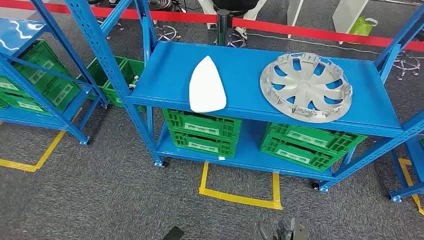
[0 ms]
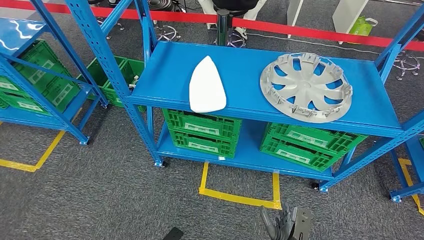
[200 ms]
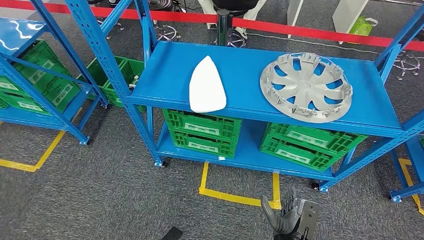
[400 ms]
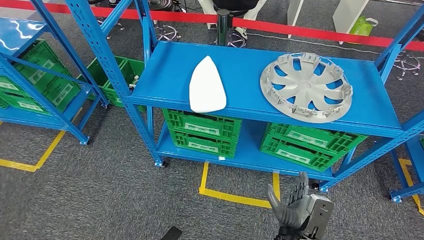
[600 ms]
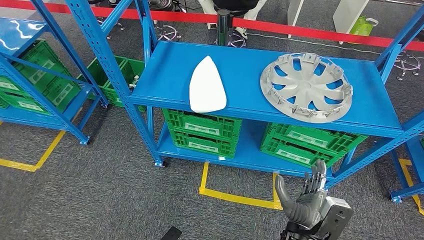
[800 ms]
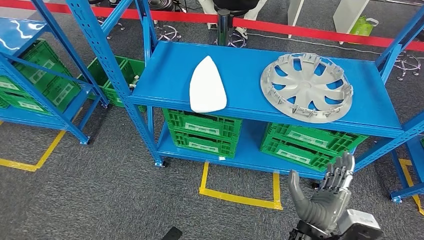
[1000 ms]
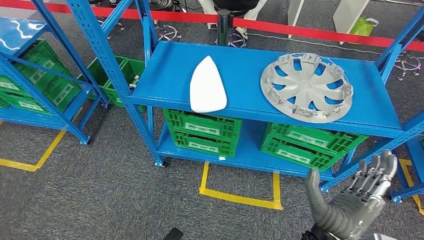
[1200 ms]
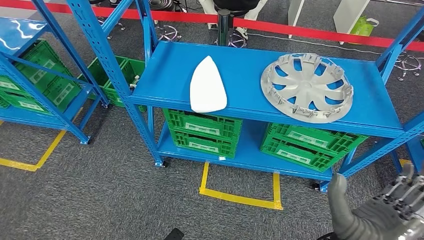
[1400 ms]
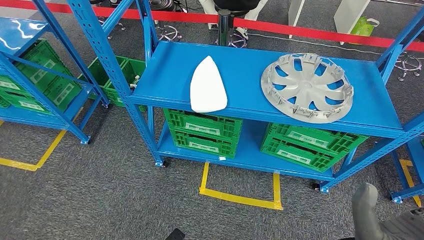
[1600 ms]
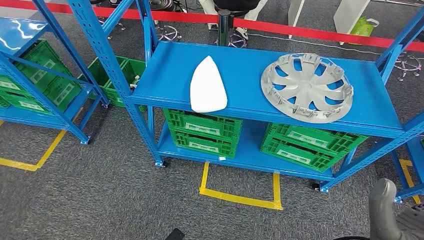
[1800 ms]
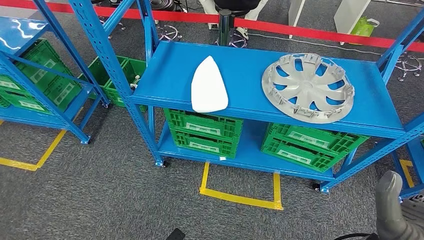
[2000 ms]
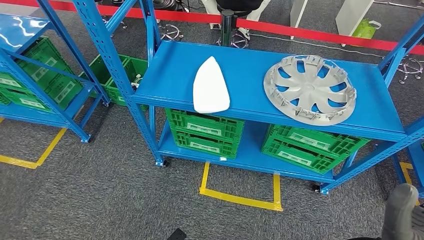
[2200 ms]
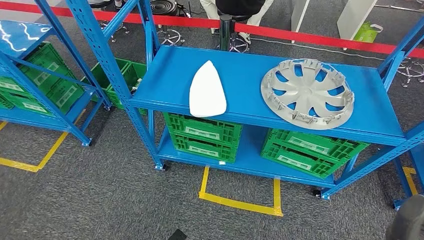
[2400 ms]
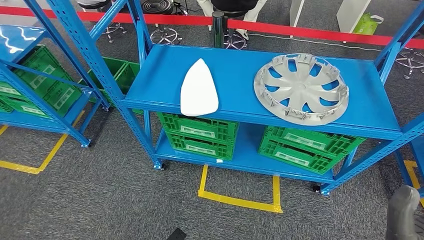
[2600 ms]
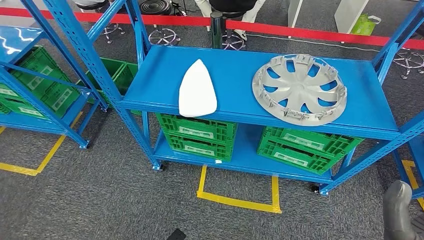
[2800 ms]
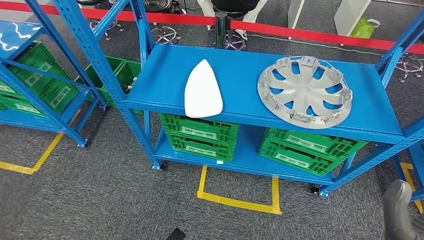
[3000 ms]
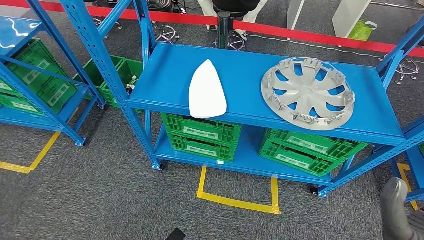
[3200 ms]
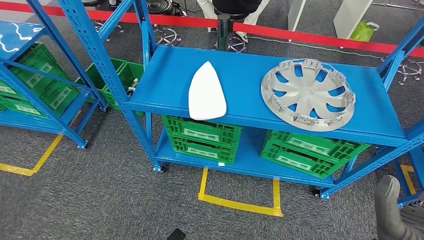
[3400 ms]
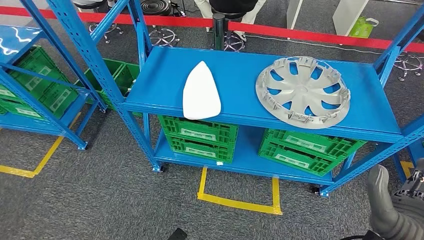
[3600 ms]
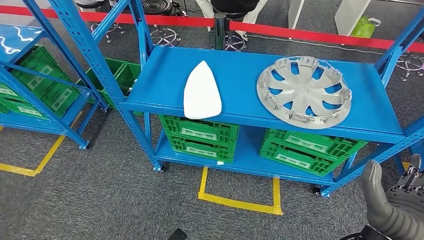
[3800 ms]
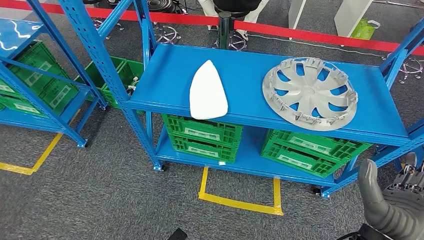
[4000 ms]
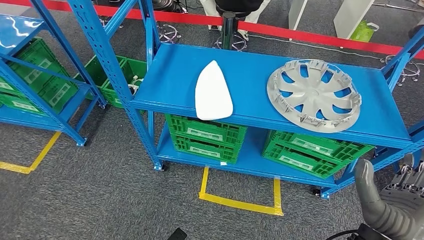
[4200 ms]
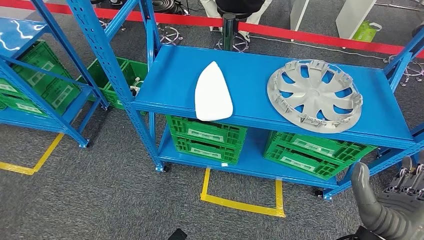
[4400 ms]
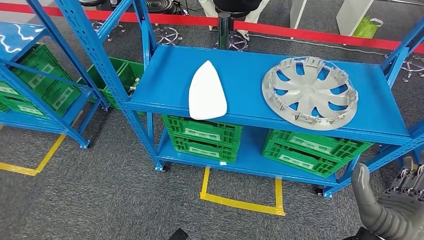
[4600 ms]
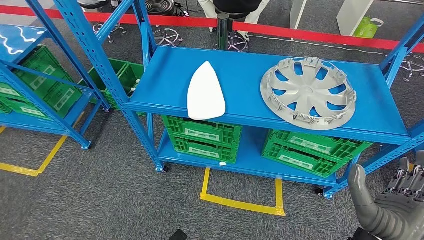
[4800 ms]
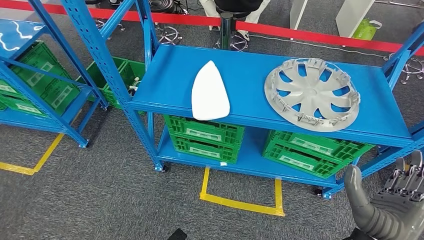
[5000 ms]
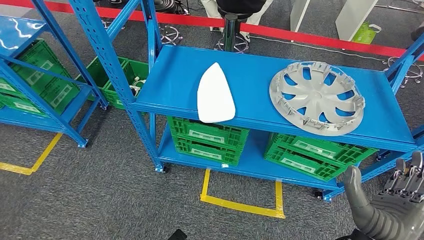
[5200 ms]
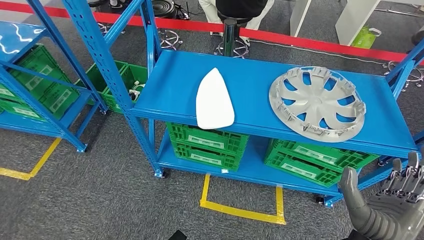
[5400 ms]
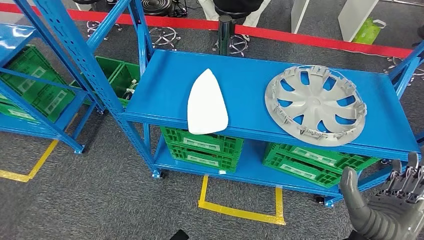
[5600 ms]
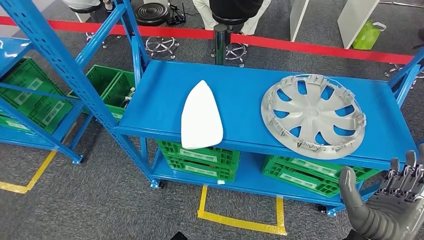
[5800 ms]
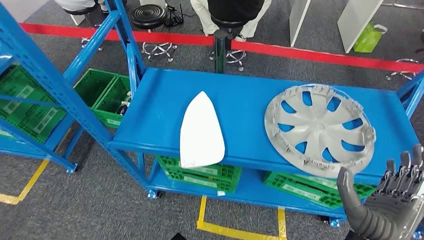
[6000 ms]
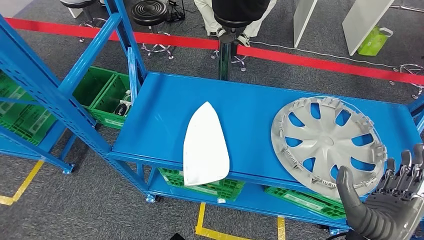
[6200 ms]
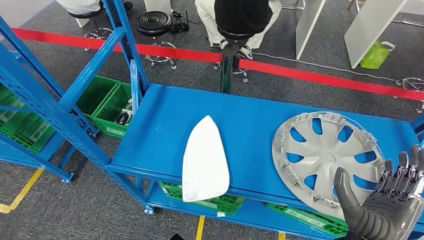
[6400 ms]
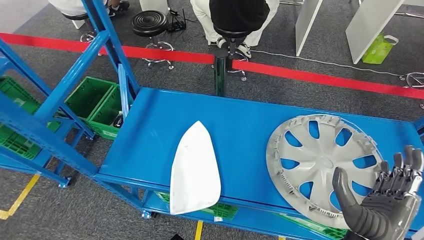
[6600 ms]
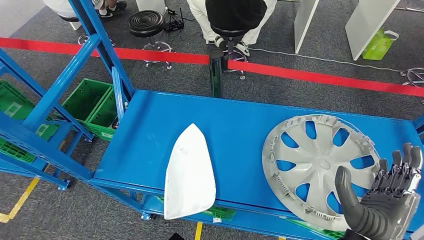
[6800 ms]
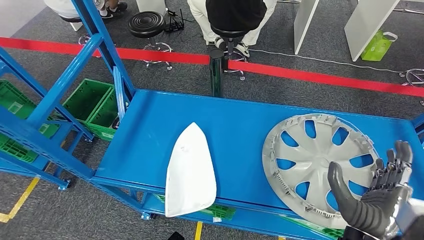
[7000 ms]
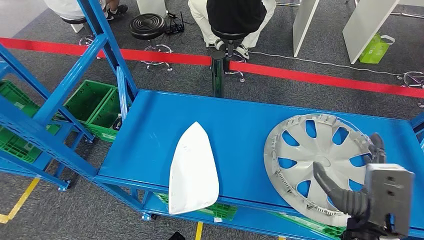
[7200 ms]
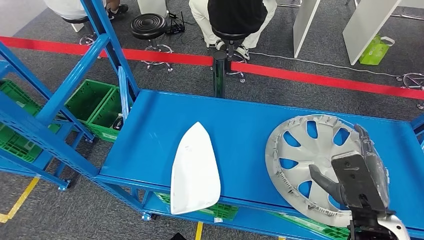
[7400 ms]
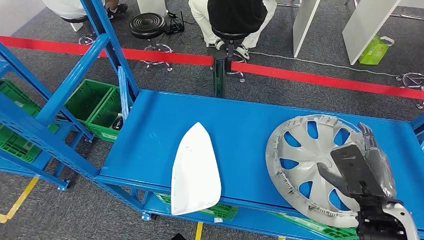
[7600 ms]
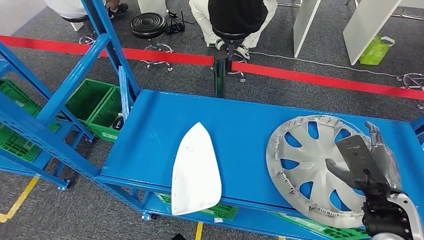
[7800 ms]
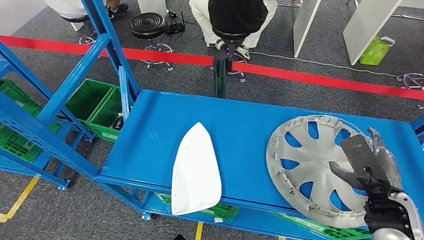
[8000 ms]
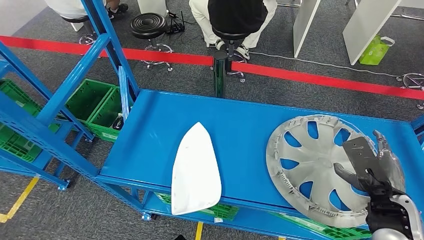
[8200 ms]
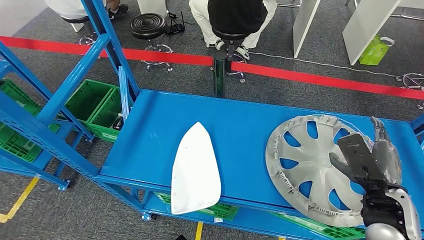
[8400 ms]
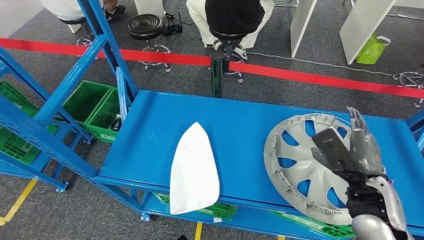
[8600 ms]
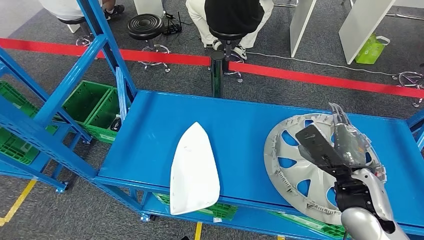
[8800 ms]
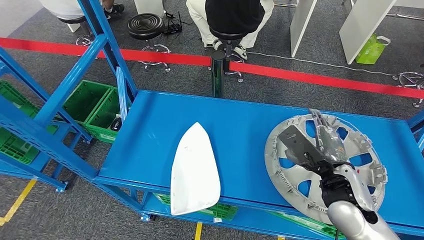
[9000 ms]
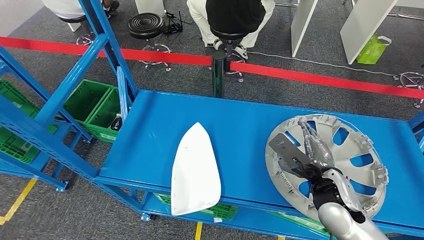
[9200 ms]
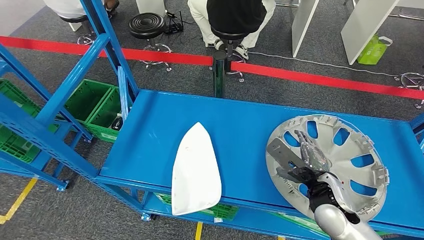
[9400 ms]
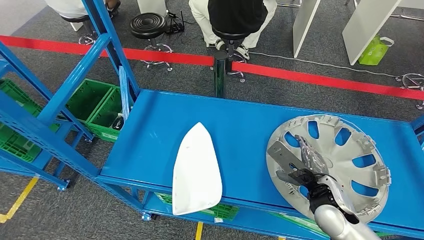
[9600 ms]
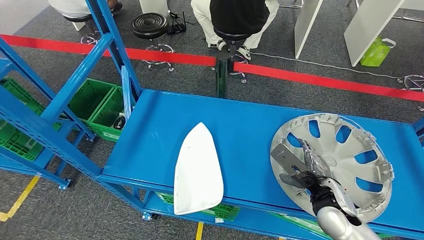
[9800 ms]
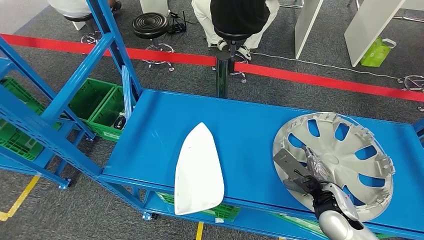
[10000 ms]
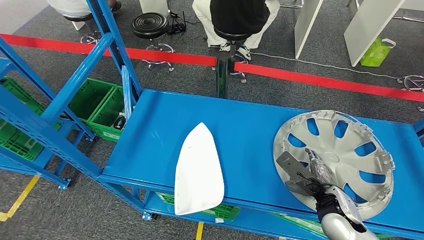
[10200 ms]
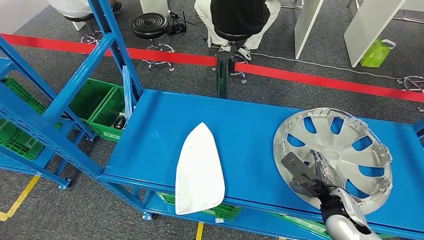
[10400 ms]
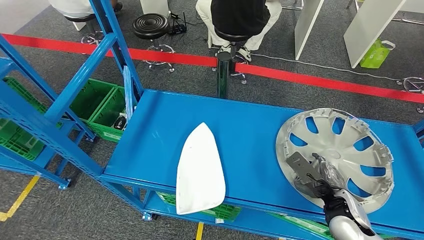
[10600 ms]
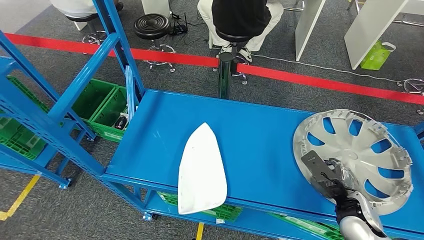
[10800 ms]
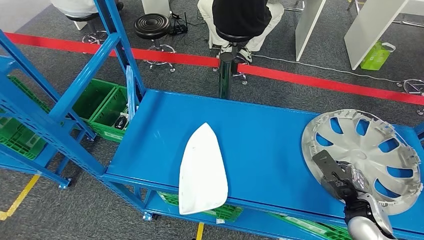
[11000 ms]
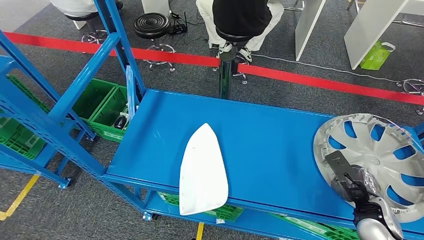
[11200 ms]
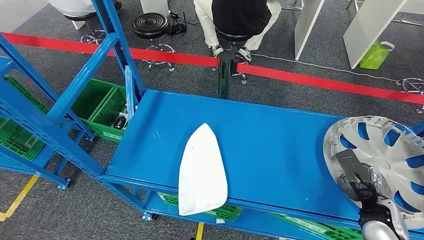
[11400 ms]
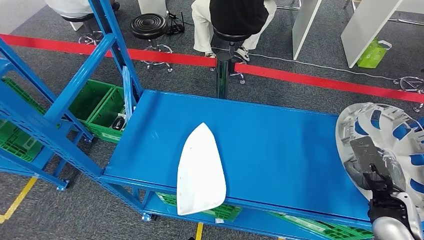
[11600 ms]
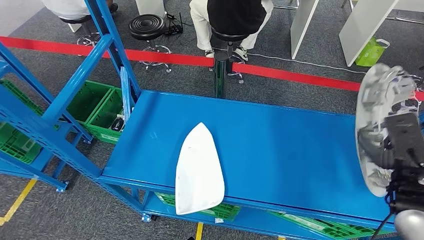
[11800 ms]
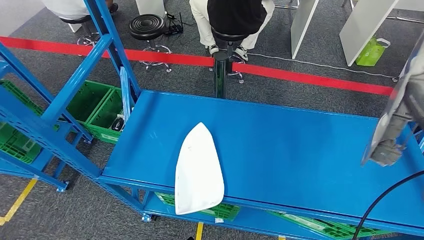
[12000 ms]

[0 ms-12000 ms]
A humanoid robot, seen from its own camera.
7600 ms to 9000 ms: The right hand shifts roughly 5 cm forward.

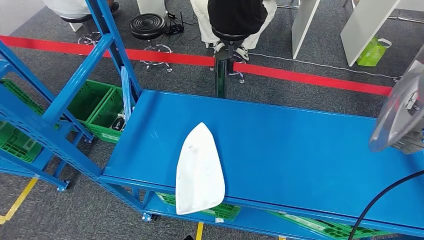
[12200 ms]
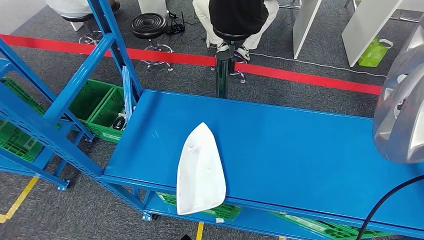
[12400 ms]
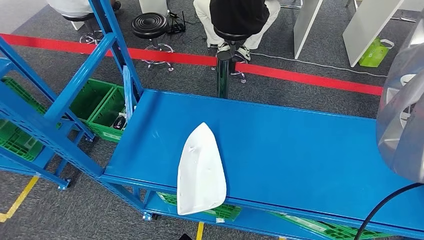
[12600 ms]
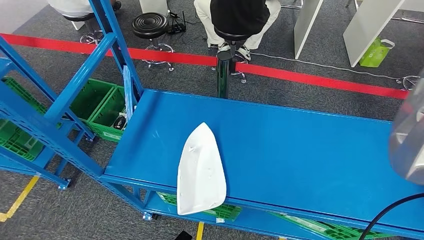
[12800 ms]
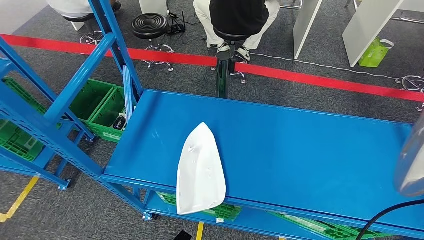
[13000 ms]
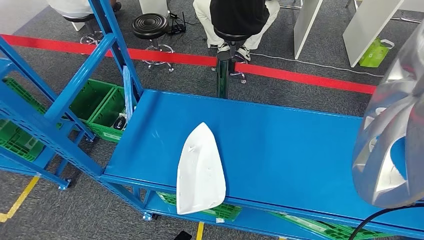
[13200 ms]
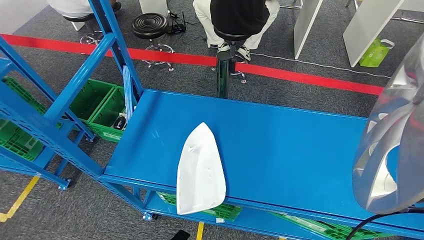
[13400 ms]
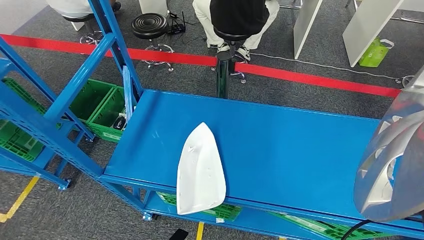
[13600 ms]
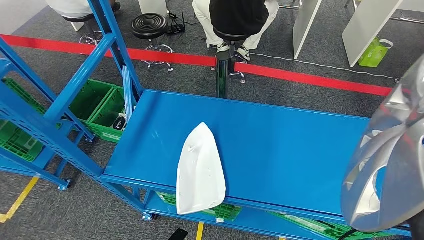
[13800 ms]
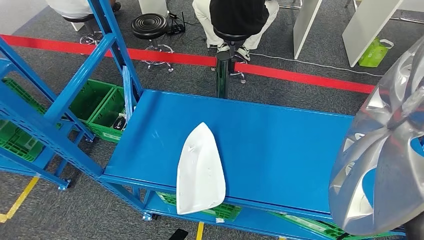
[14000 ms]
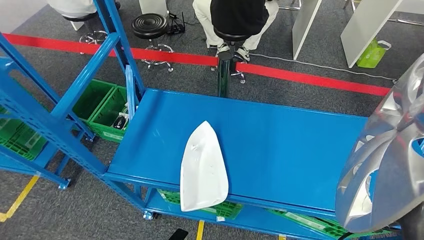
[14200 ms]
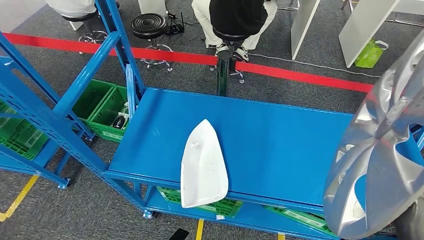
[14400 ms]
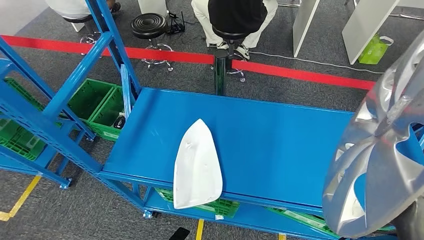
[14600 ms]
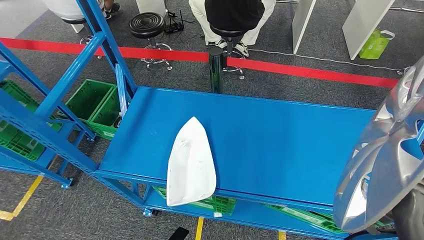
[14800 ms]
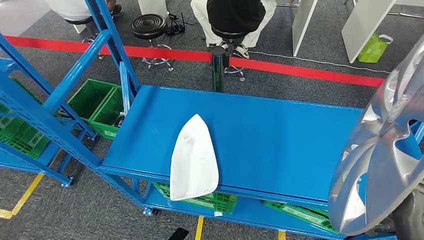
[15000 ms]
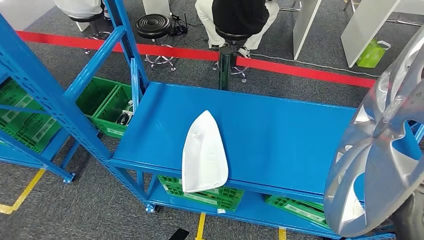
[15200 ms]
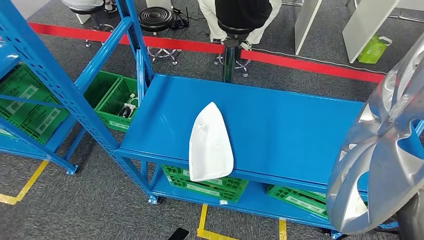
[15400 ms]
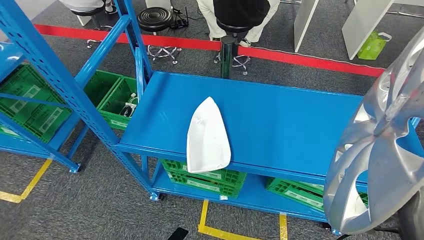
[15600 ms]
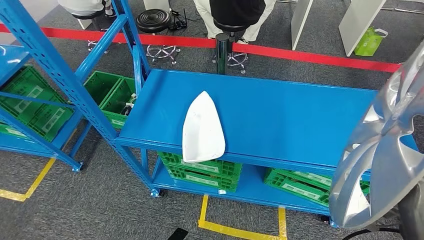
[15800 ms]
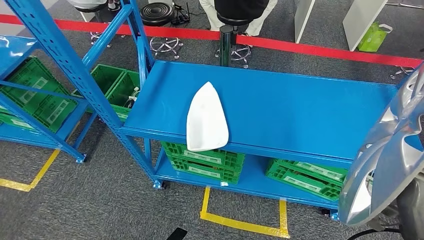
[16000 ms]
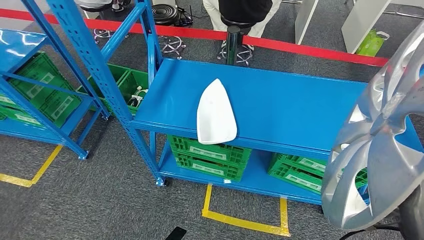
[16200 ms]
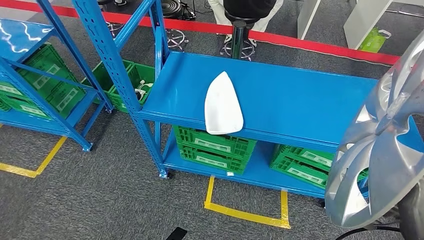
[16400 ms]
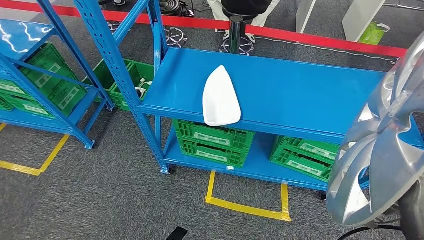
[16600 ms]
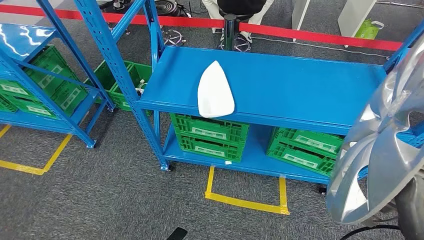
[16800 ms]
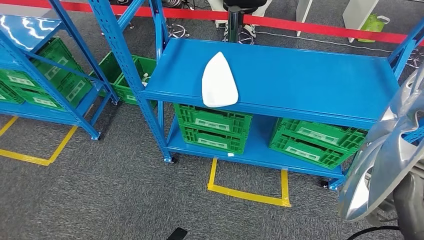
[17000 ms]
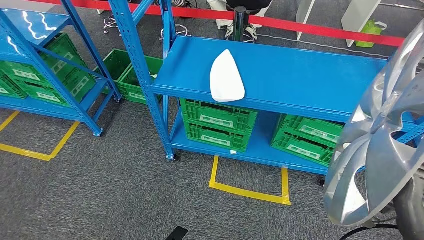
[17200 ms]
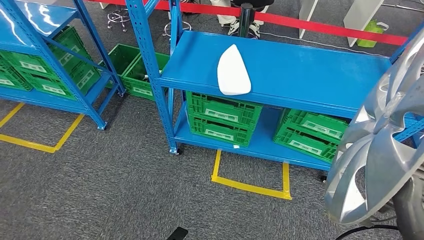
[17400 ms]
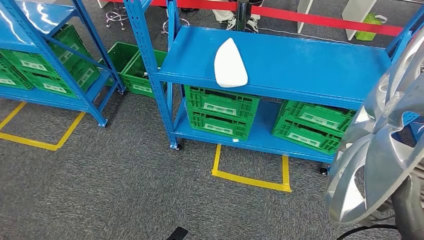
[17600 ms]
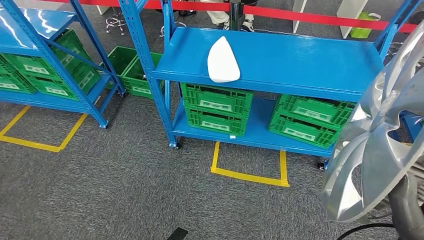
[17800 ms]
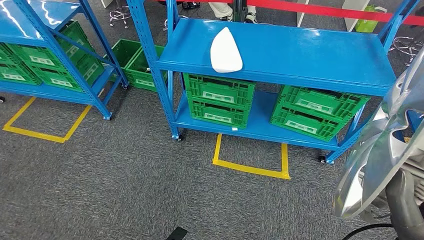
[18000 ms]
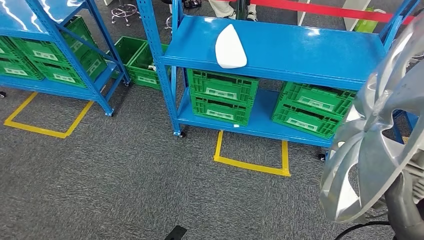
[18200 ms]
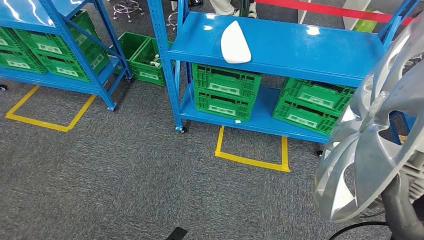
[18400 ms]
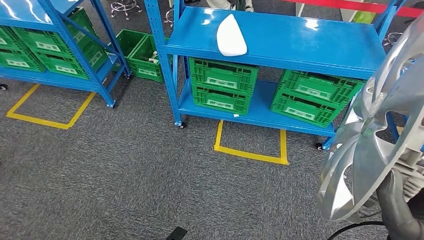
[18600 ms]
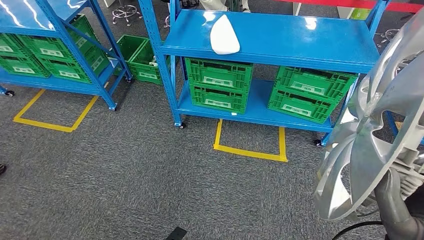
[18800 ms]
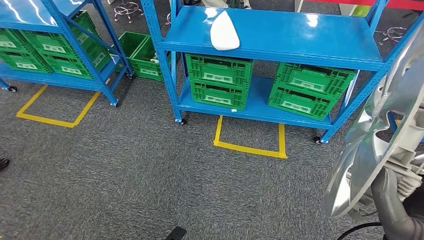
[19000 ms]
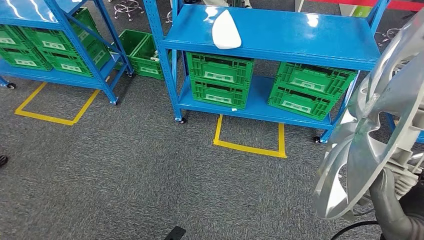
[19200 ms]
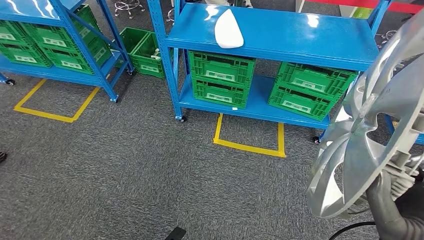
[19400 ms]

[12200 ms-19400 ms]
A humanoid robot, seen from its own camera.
12200 ms to 13600 ms: The right hand heads downward, backward and to the left, covering some 15 cm.
